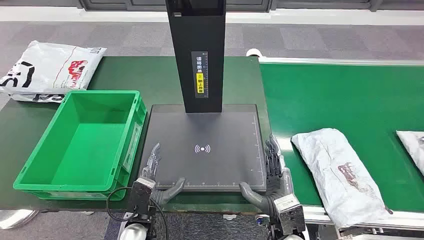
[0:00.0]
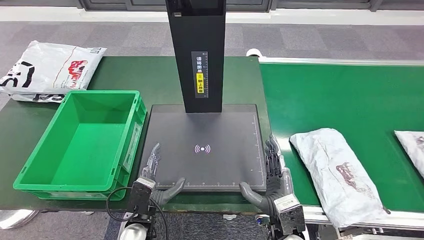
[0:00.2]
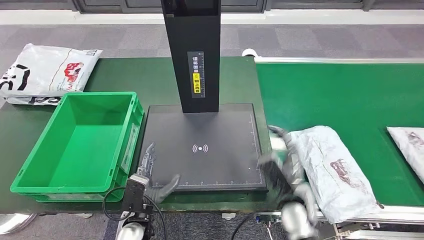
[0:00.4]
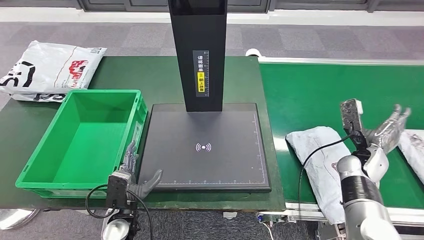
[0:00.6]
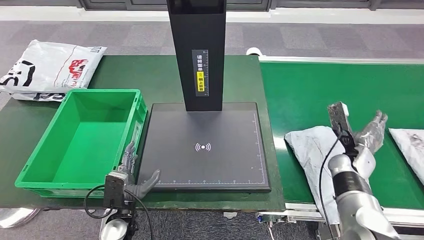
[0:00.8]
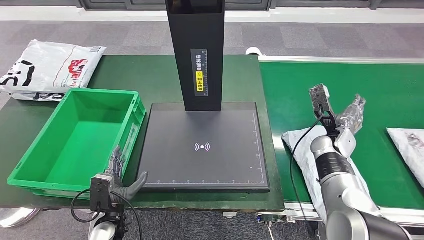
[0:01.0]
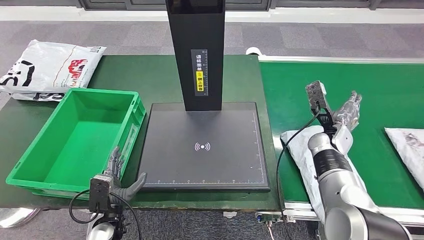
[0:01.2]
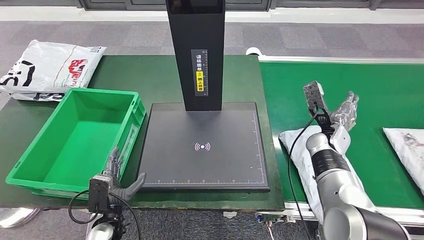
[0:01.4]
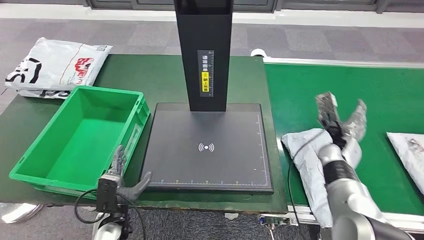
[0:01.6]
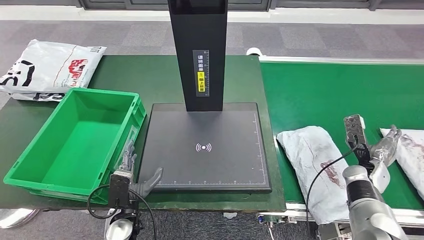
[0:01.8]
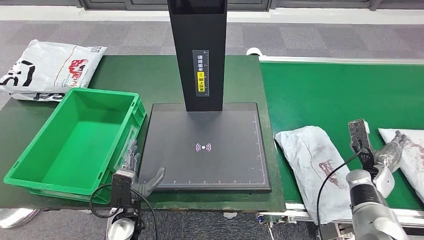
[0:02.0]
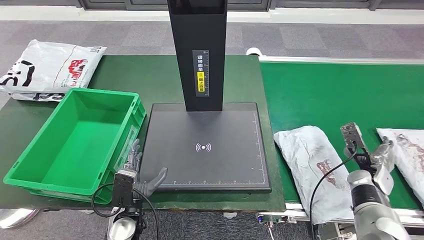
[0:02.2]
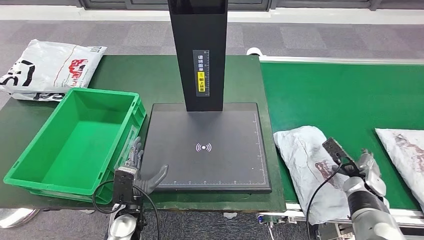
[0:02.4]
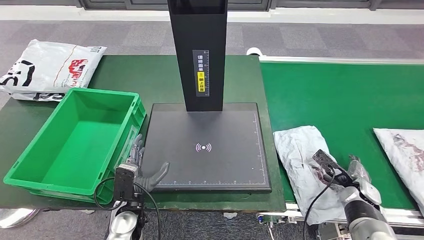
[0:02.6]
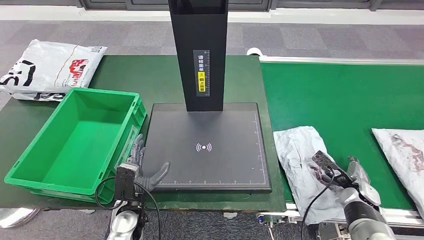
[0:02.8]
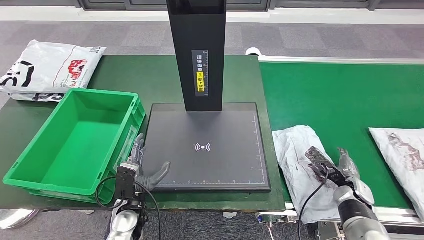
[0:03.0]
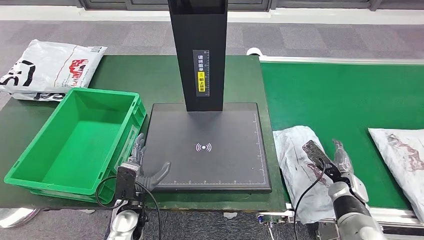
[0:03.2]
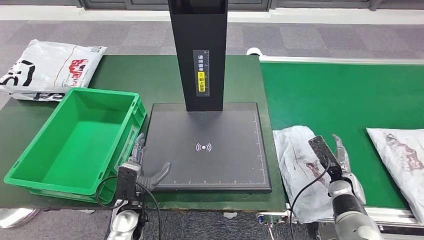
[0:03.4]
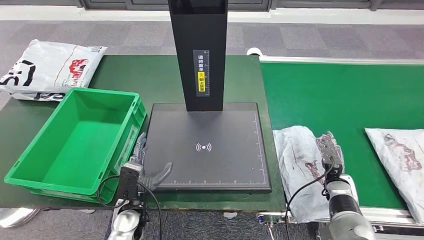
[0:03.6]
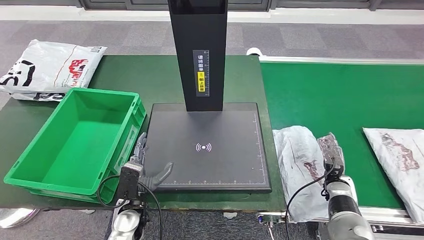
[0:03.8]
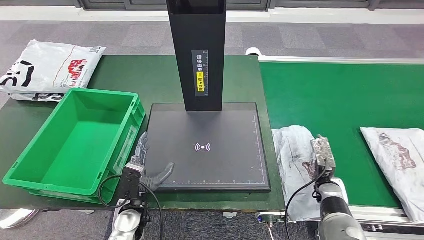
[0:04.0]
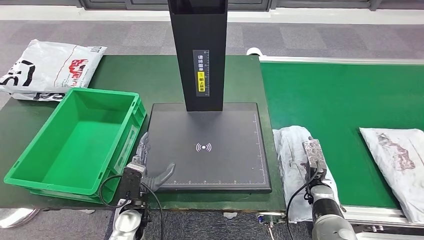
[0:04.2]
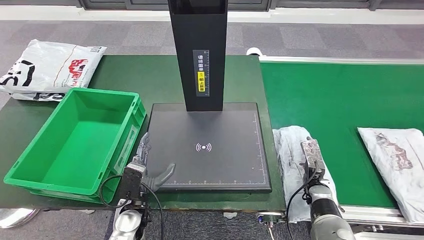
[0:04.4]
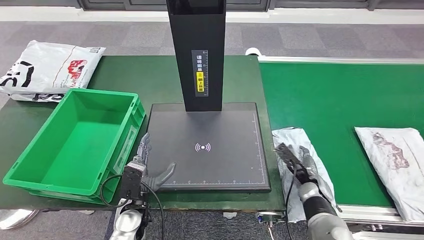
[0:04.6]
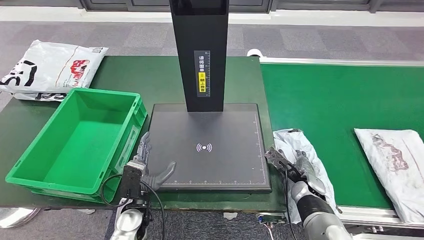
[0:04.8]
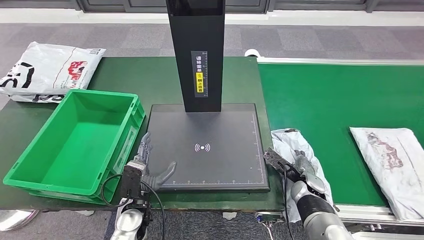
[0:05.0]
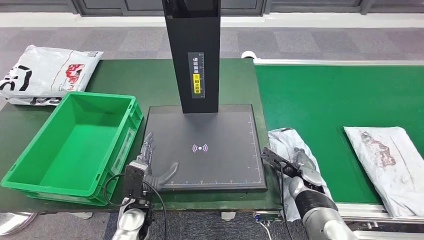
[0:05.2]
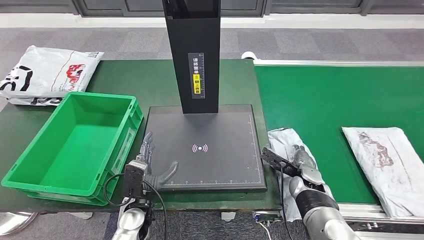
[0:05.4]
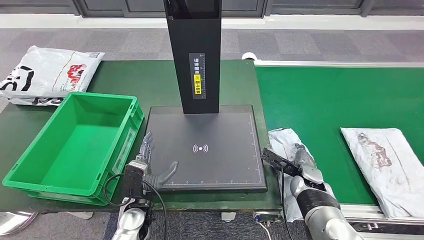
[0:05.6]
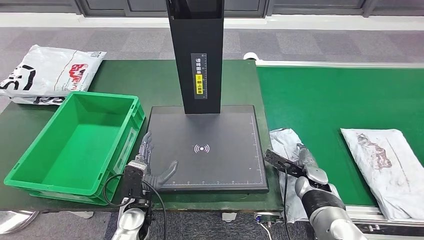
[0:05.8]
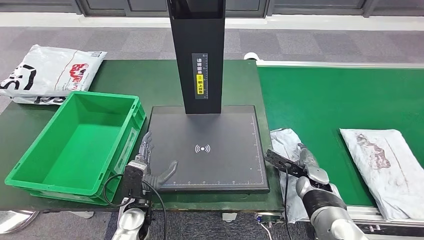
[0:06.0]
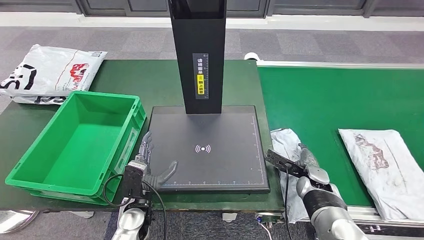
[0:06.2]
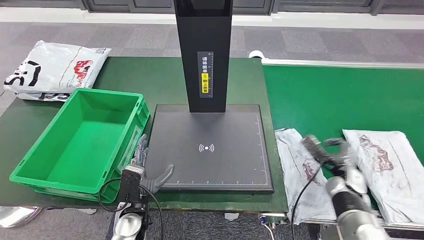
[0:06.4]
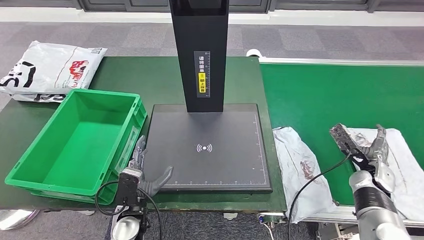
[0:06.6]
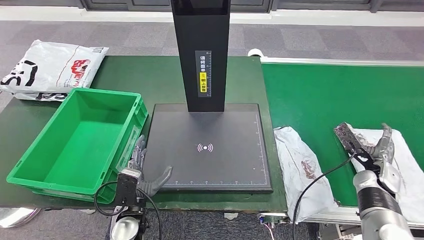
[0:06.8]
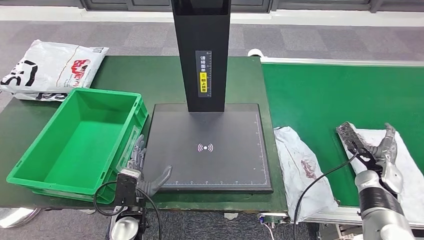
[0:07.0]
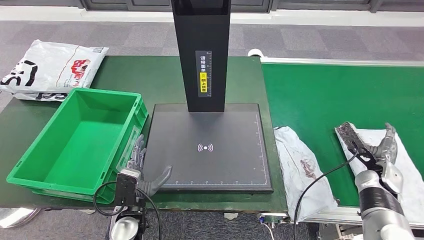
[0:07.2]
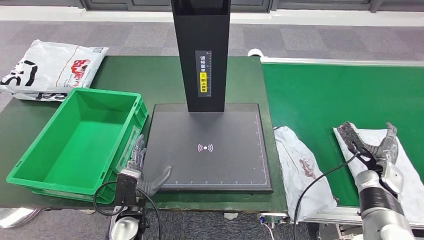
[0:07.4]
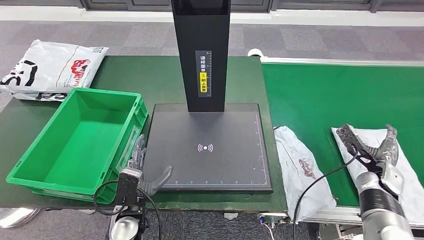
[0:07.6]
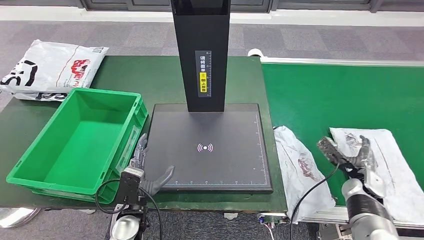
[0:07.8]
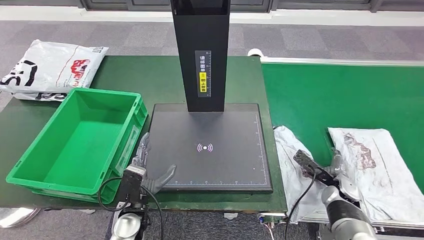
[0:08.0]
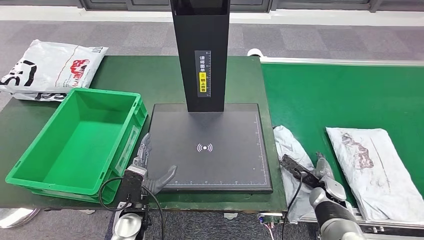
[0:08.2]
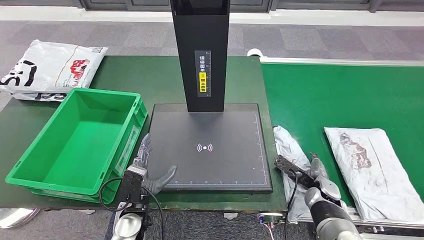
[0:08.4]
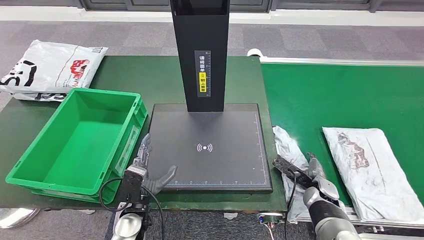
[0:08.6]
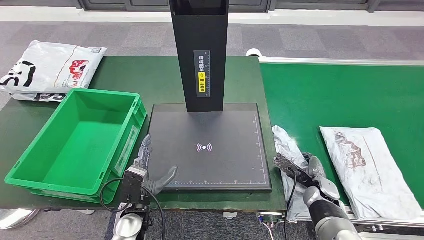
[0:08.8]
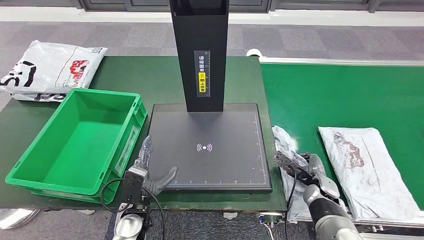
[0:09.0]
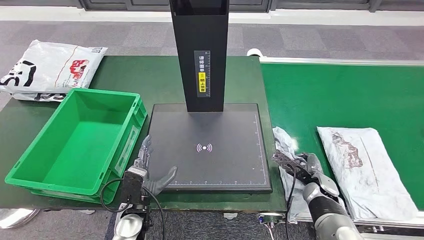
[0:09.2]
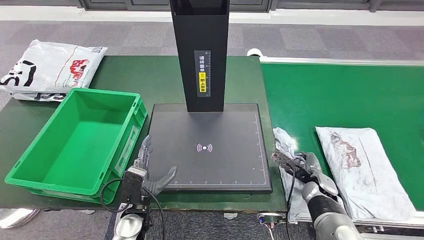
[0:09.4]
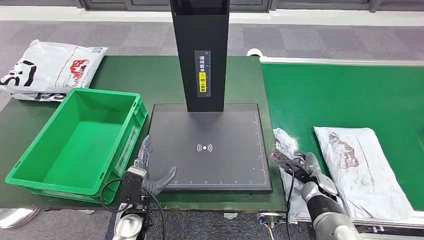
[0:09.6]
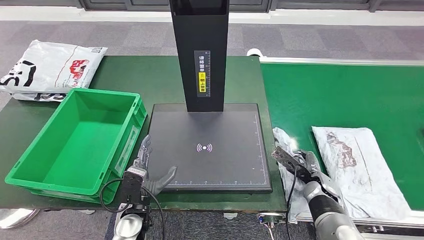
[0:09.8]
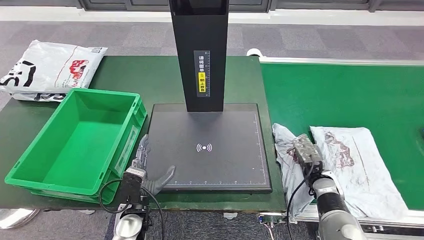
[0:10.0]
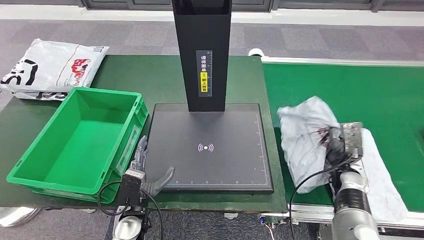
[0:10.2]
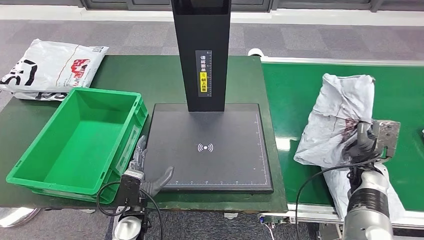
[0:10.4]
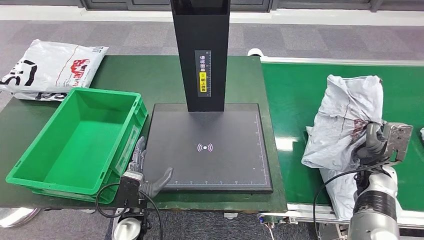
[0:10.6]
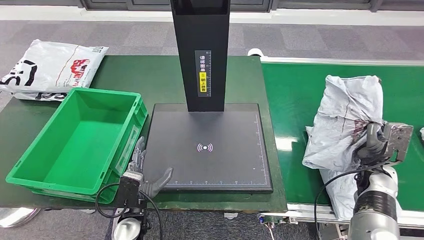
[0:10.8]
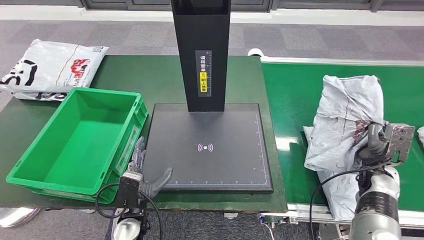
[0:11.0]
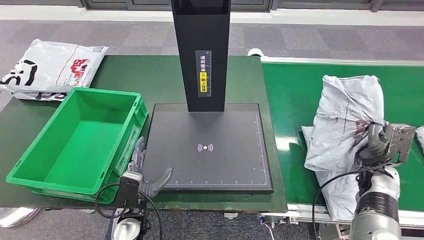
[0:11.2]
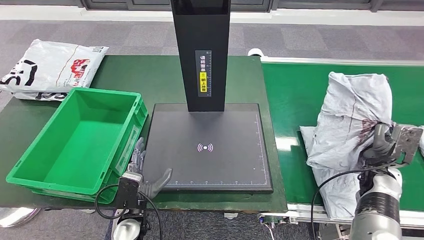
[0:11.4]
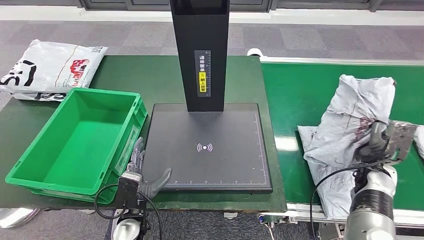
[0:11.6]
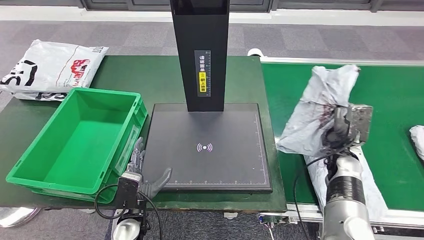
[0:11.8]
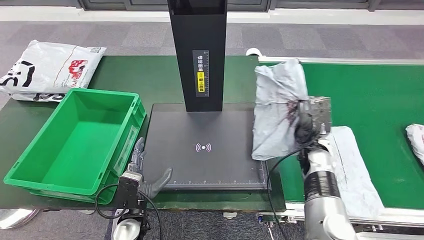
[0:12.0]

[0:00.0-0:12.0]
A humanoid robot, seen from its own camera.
Step, 0:00.0 to 0:11.4: Take the parcel off the conveyor belt.
0:03.0 to 0:04.4: The right hand moves to the left, roughly 10 cm.
0:07.6 to 0:09.0: The right hand goes approximately 15 cm to the left and downward.

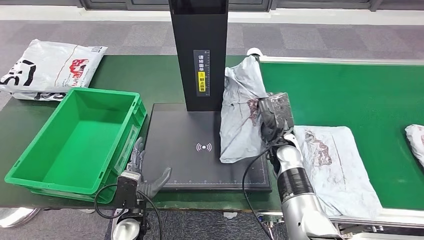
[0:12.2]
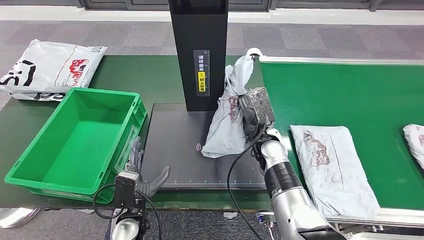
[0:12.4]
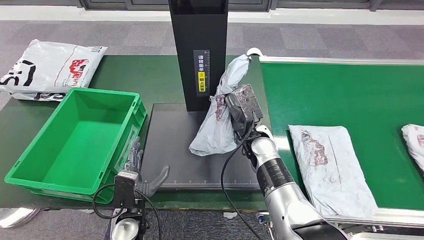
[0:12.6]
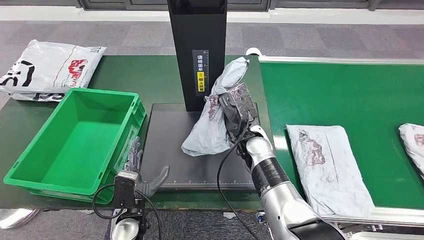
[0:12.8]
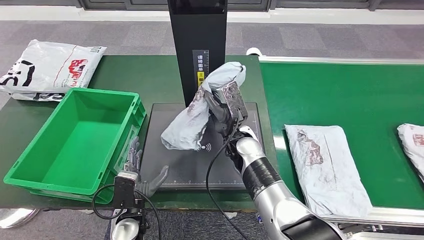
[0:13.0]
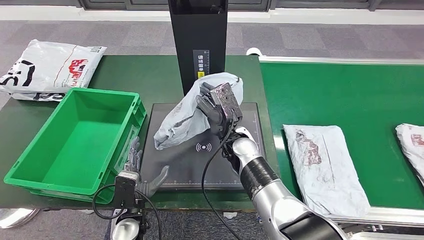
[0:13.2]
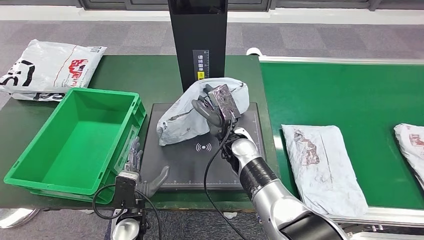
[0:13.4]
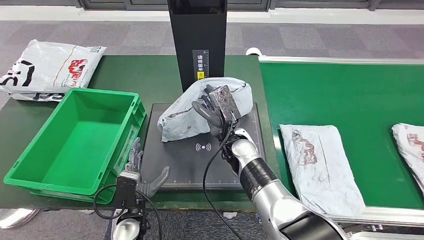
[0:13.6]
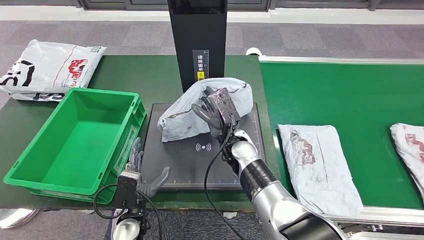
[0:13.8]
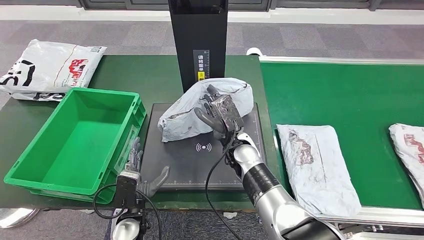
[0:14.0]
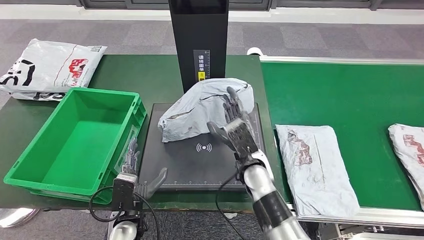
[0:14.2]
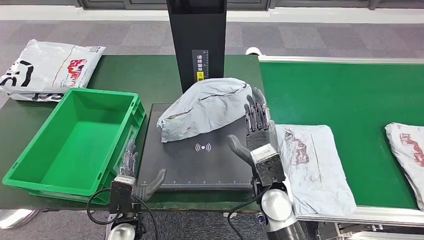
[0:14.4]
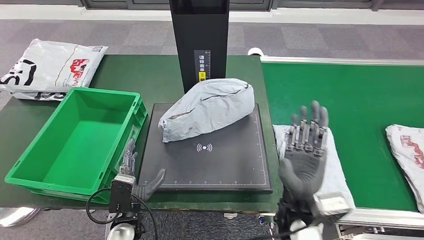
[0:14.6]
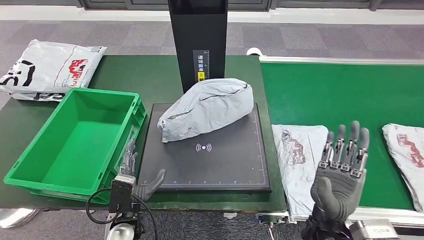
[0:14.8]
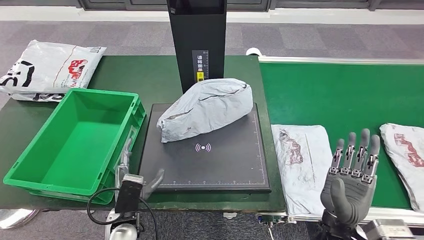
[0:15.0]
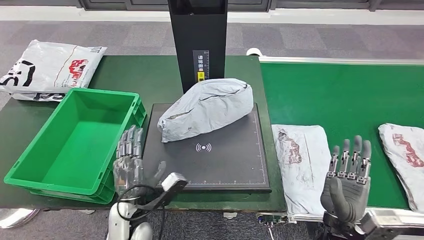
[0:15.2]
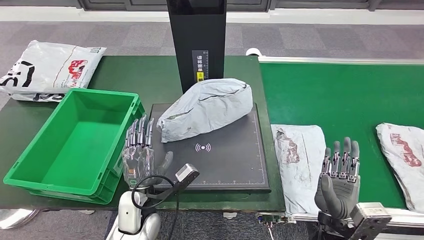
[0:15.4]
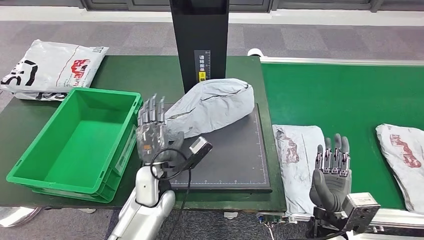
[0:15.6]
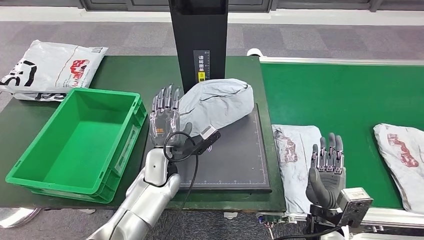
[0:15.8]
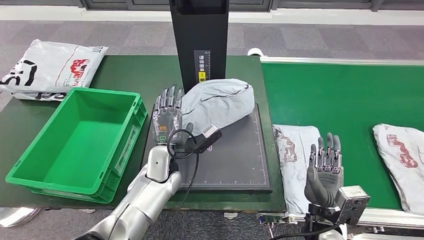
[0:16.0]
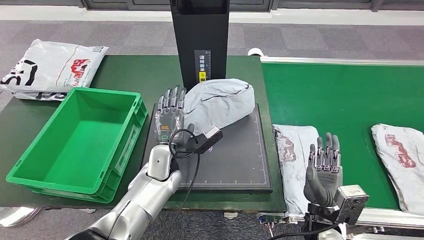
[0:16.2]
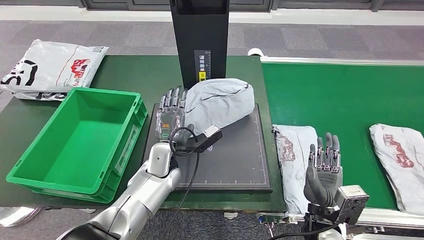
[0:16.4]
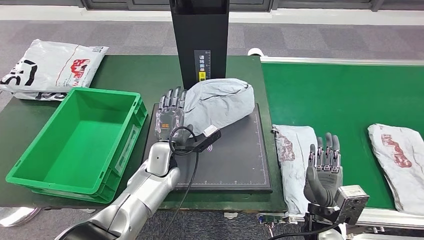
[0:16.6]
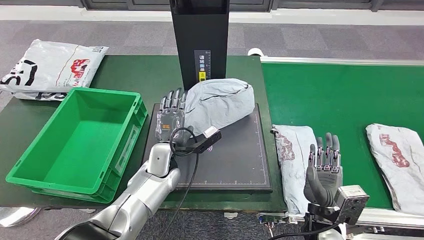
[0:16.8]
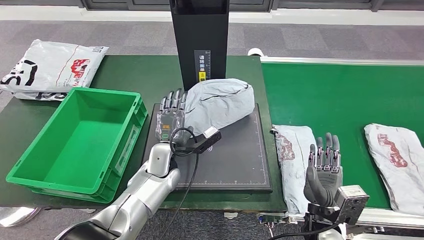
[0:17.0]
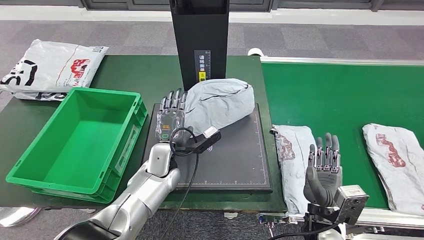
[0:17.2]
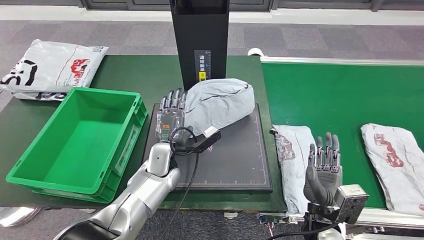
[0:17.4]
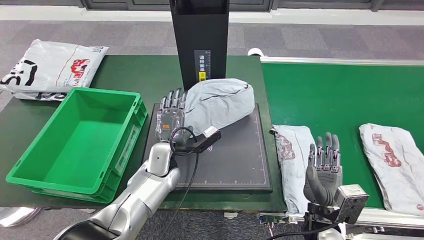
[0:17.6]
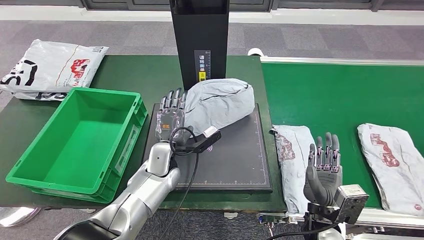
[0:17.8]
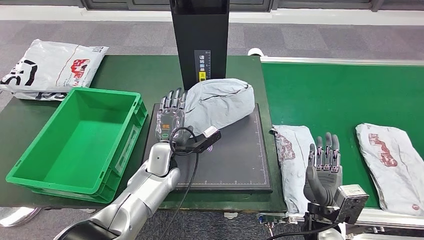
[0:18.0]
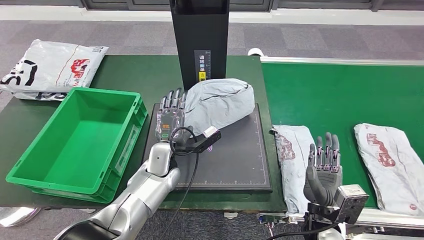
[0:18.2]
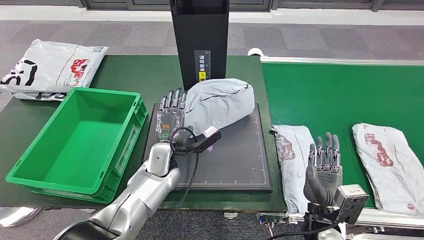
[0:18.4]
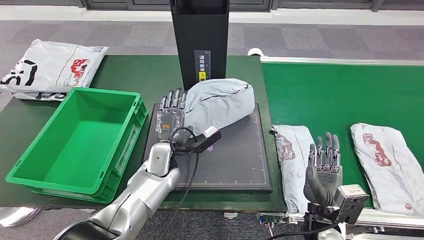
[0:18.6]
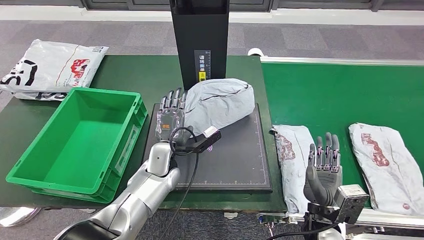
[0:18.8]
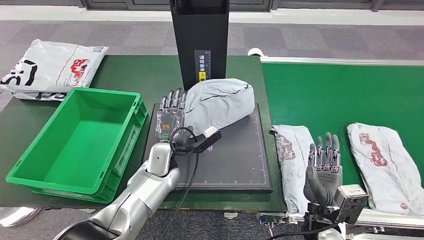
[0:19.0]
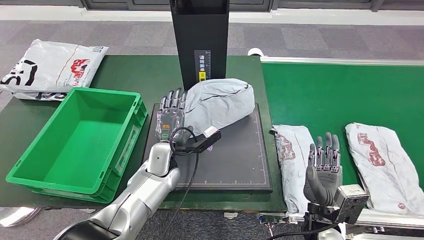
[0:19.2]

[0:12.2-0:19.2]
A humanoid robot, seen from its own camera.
Step, 0:12.2 to 0:15.6: Place the parcel onto the inbound machine.
0:13.6 to 0:15.0: The right hand shifts approximately 25 cm backward and to the right.
0:16.4 to 0:19.2: Both hands stay put.
